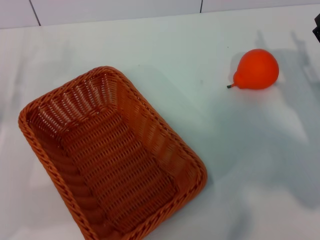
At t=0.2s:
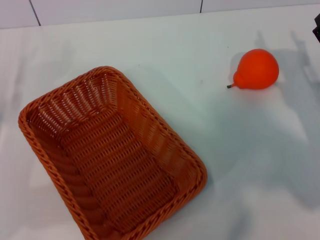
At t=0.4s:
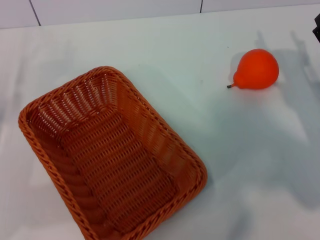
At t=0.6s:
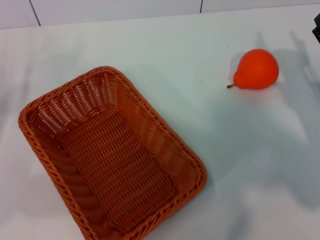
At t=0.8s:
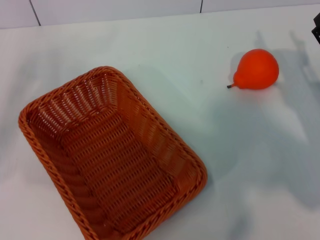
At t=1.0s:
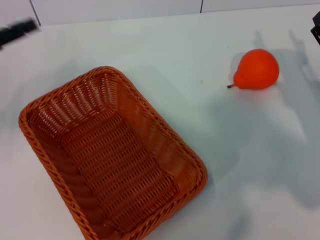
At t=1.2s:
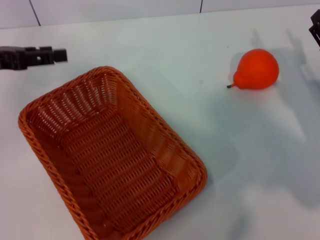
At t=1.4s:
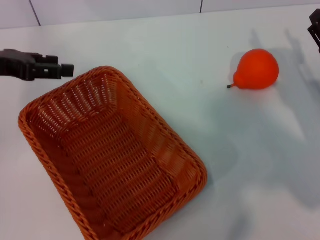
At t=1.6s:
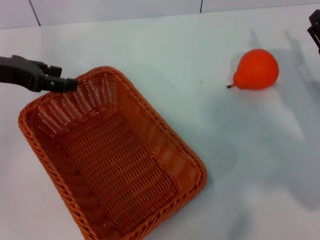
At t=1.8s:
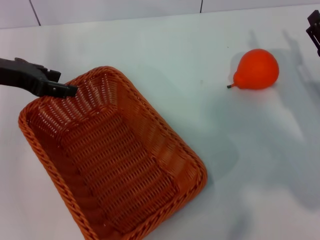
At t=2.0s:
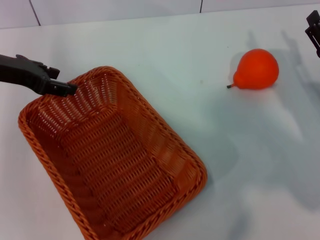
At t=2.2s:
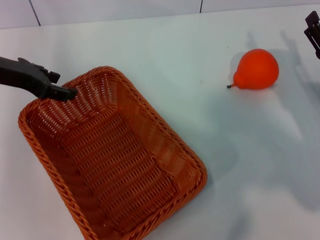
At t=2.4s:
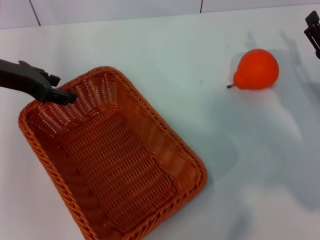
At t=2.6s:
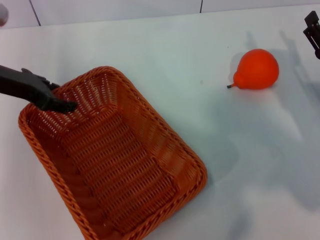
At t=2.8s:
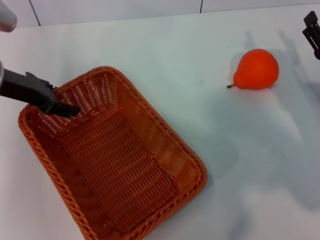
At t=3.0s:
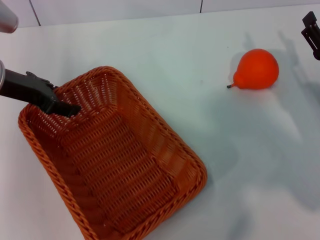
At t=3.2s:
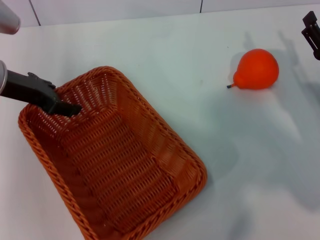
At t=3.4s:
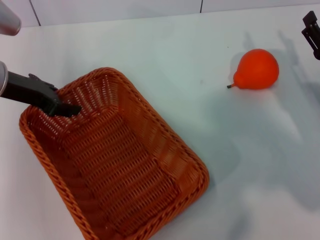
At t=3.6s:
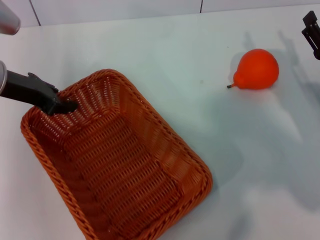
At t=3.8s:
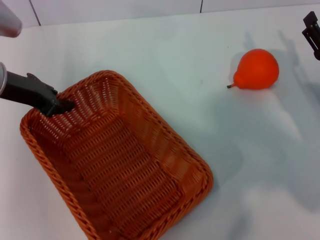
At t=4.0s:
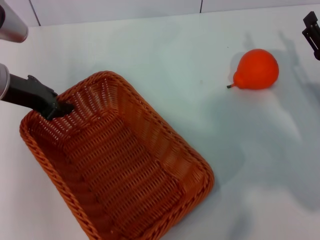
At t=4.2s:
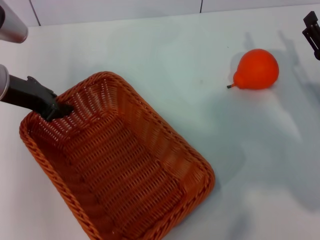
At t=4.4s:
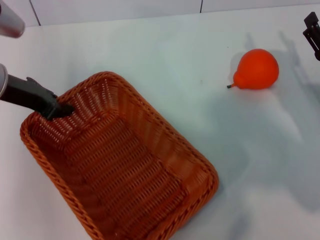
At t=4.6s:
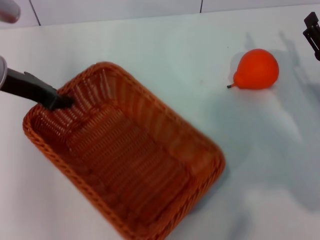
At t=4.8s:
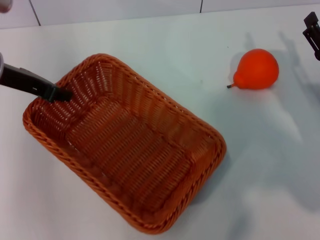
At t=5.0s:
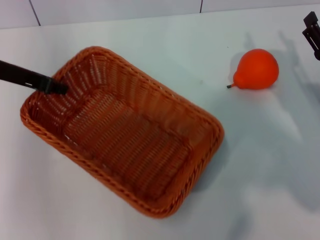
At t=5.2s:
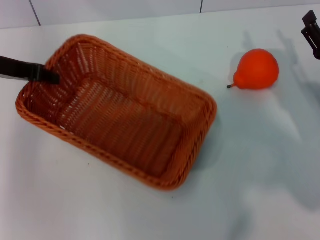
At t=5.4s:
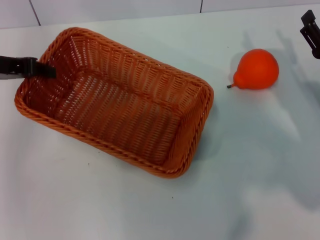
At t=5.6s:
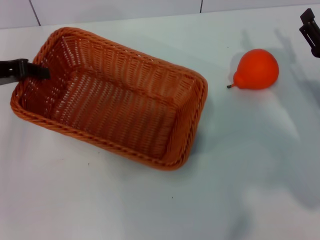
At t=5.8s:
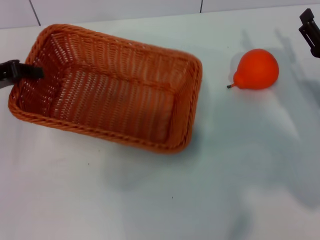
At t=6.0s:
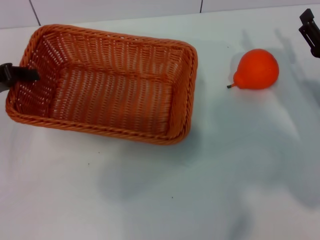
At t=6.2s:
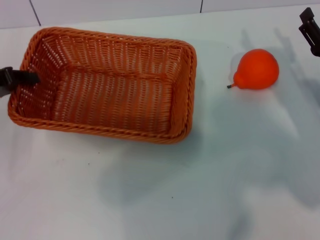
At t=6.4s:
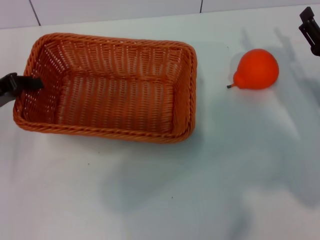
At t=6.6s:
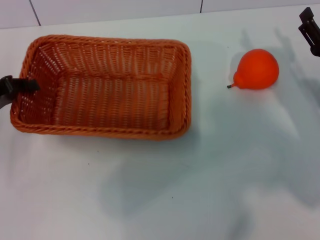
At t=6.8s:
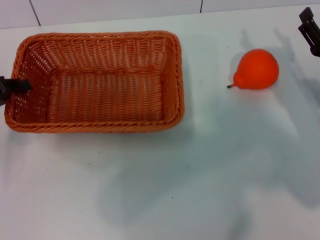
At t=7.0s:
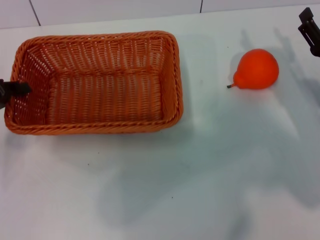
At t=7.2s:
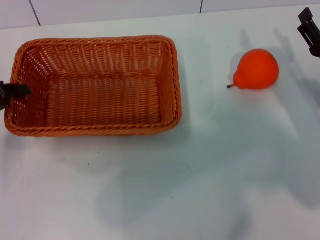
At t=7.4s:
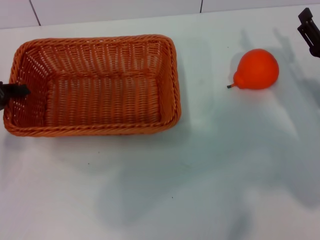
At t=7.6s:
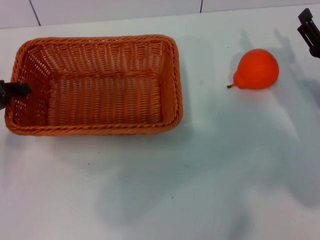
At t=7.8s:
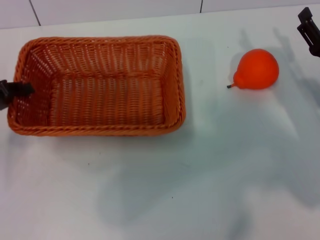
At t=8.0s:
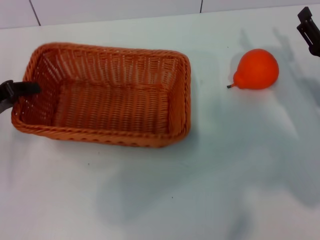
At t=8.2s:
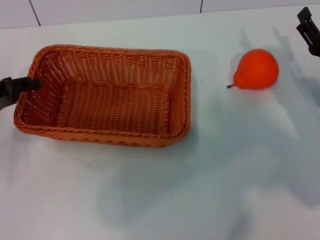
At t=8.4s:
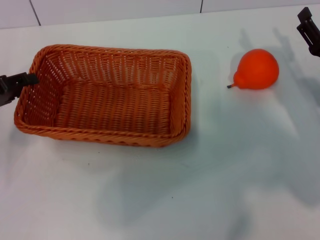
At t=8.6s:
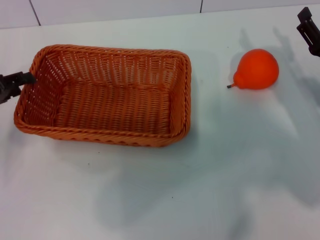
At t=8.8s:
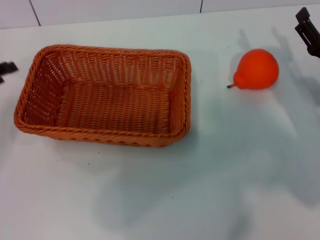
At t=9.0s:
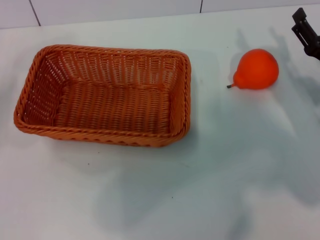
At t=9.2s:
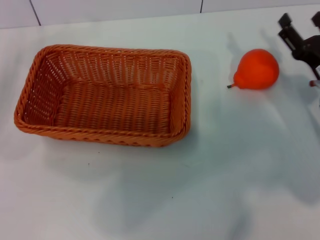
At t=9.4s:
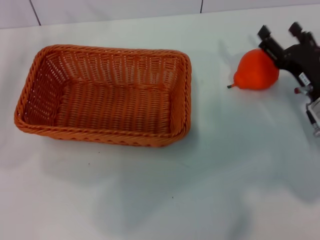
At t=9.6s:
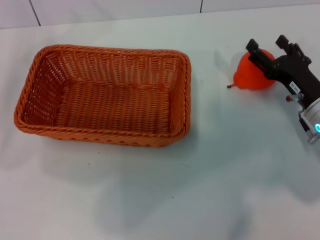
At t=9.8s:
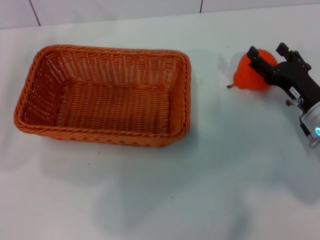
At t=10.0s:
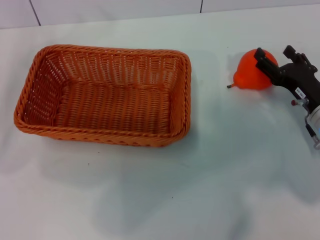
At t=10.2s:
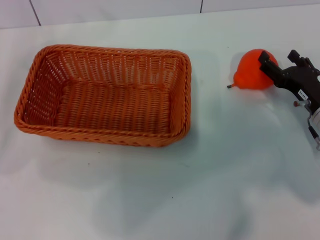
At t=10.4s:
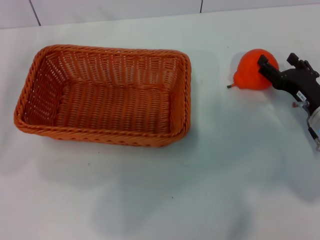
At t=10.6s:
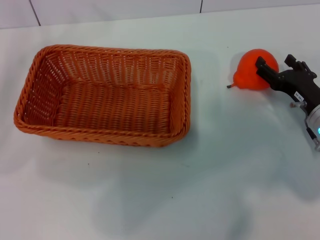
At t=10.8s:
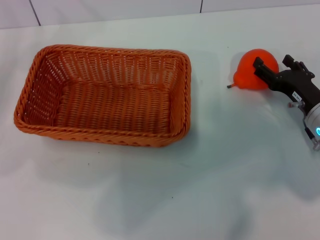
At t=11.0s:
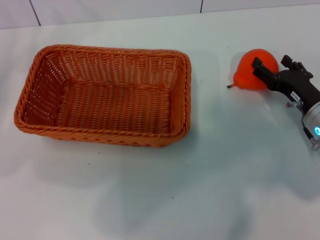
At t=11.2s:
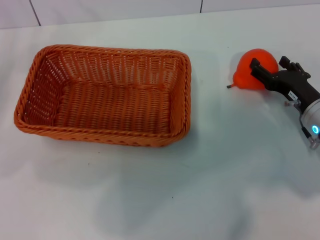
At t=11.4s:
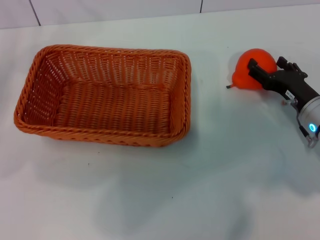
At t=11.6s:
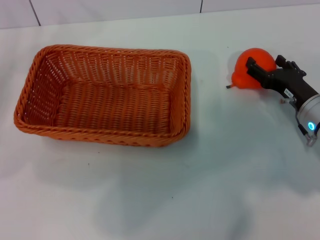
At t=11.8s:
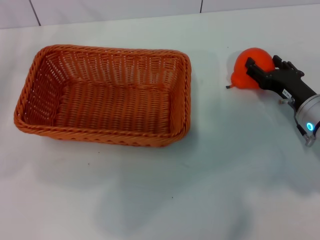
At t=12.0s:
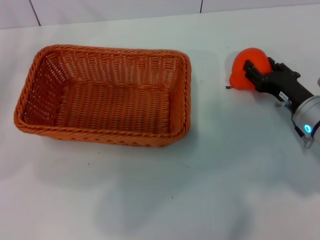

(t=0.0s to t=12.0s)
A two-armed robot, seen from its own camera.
Task of the whole recording: the left gripper pick up the yellow basket and place it horizontally in the middle of the table, the right gripper pick up the orange and place it into the yellow basket.
Step, t=0.0s - t=4.4s: Pick up the light basket with the left gripper.
Step, t=4.6s - t=8.6s: Place the light basket in the center of view with the left gripper.
t=0.0s - t=1.6s: The left gripper moves upward, forward and to the right, roughly 15 cm.
t=1.6s - t=3.0s: There are only small adjustments of the grippers.
t=3.0s - t=4.4s: The left gripper closes up.
t=4.4s - t=6.0s: The left gripper is displaced to the left by approximately 10 cm.
t=6.0s - t=7.6s: The grippers make only small movements.
t=7.6s - t=9.0s: The left gripper opens up.
t=10.4s - t=12.0s: The grippers move only a little.

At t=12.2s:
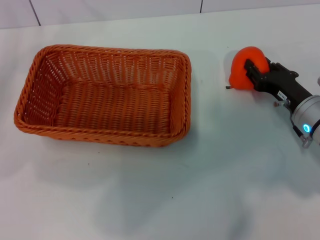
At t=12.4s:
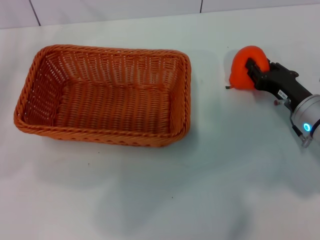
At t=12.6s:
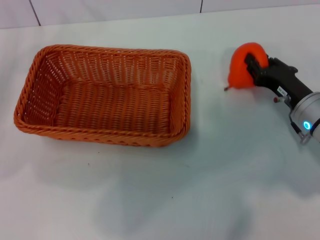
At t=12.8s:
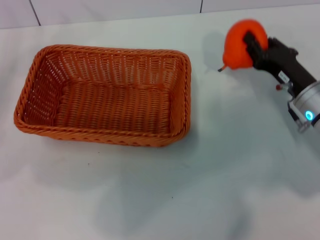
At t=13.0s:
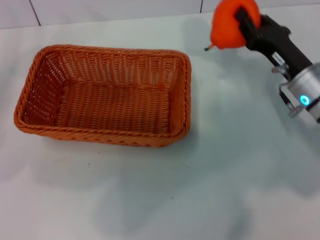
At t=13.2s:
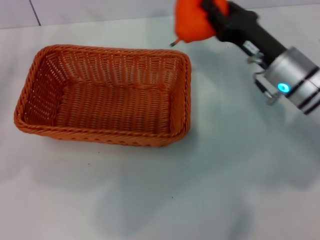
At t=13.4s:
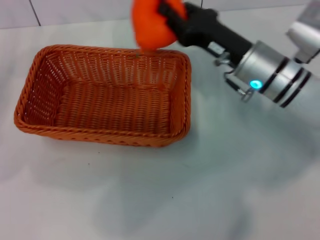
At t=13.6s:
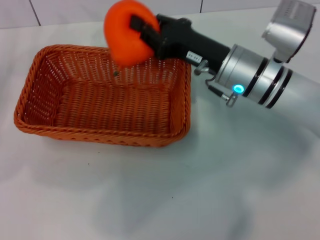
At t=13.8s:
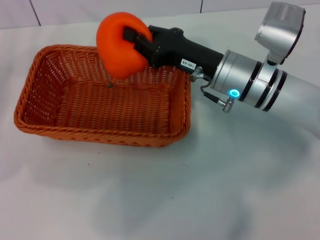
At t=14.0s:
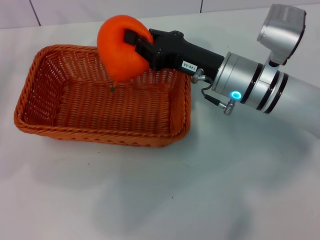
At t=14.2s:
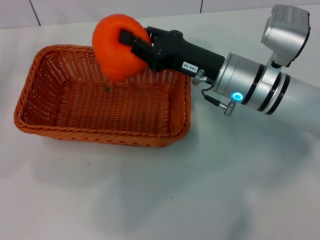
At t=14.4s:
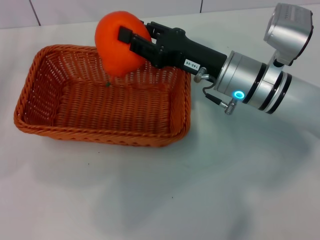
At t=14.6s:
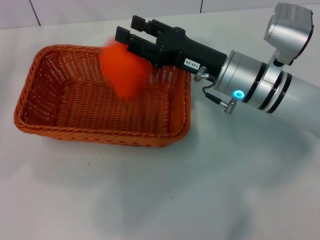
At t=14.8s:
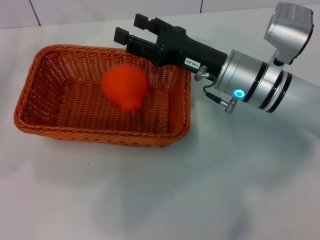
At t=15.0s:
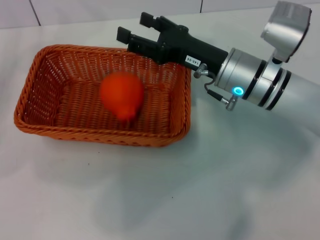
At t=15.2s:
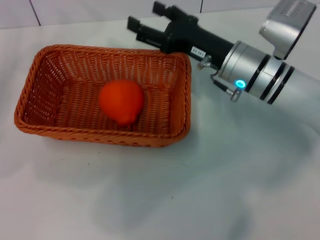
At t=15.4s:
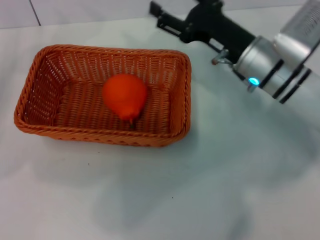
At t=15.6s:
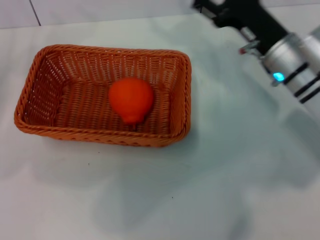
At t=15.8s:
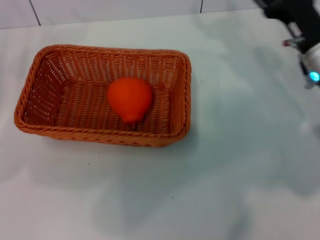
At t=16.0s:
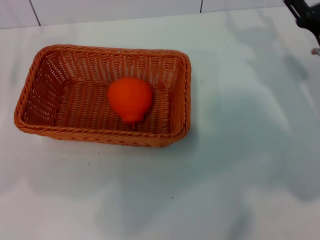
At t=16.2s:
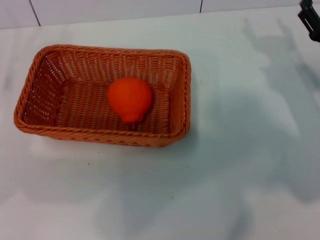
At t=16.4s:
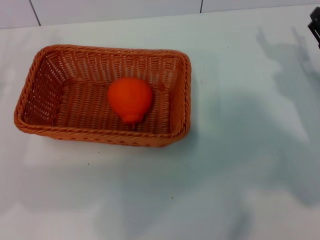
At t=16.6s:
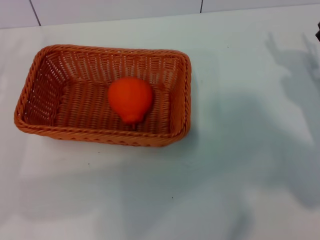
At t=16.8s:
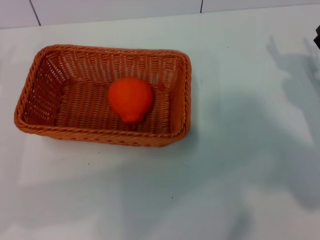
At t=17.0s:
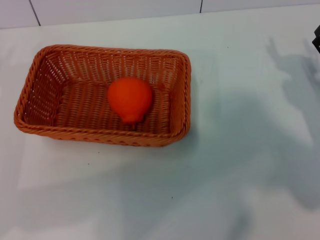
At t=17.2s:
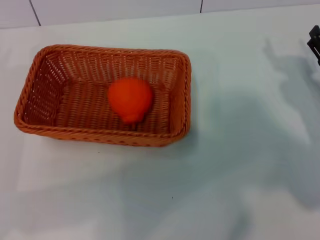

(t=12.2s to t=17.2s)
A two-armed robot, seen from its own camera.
Task of the whole recording: the left gripper pick up the yellow basket and place it horizontally in the middle of the table, the right gripper pick up the orange and place it into the yellow basket.
Step, t=13.0s - t=14.6s: Place the orange into the light basket with the right gripper.
t=12.2s - t=13.8s: The right gripper moves to the left and upward, about 15 cm, and closes.
t=13.8s - t=15.6s: The right gripper travels to the right by approximately 5 cm, and opens its fingers.
t=15.6s - t=17.2s: The left gripper is displaced downward and backward by about 10 cm. The right gripper moves to the right, backward and downward, roughly 15 cm.
